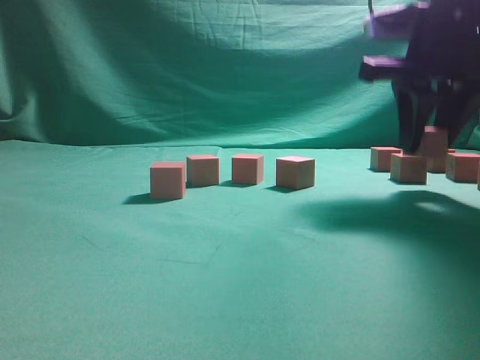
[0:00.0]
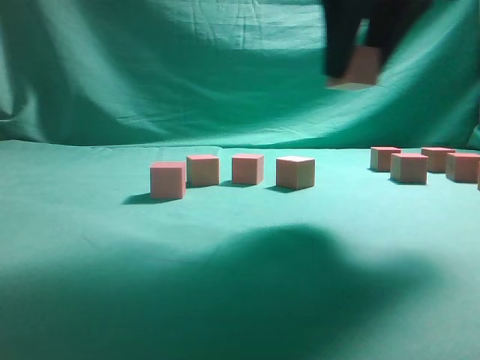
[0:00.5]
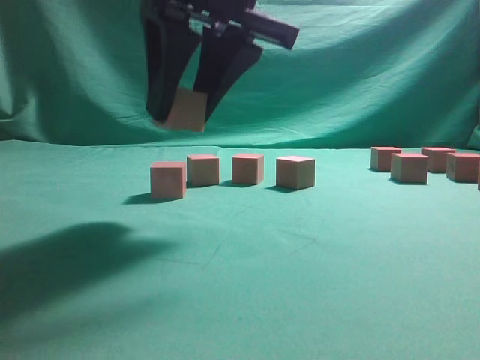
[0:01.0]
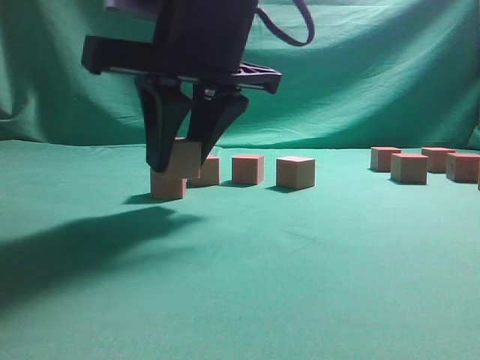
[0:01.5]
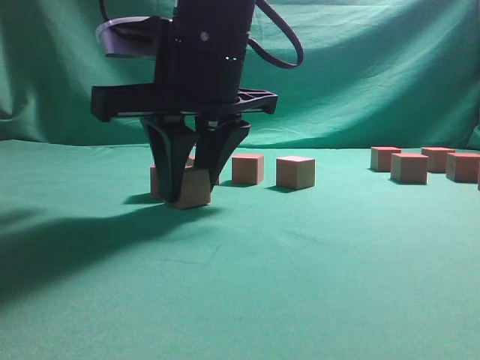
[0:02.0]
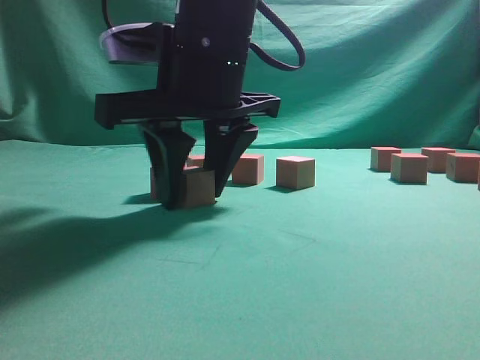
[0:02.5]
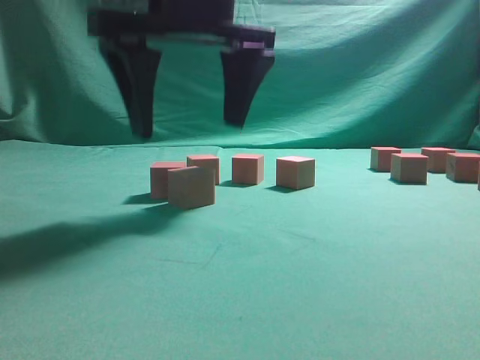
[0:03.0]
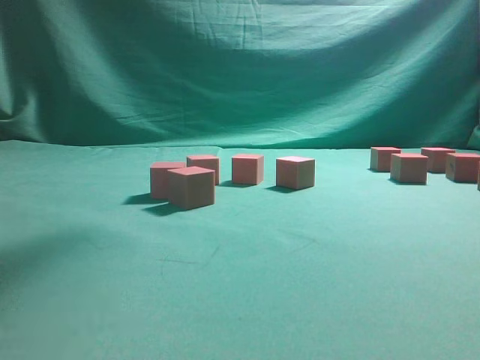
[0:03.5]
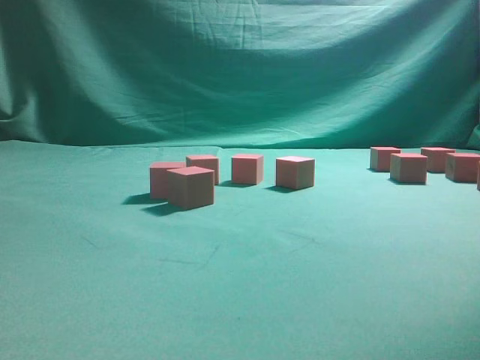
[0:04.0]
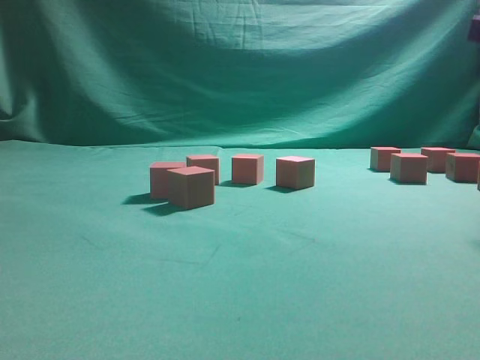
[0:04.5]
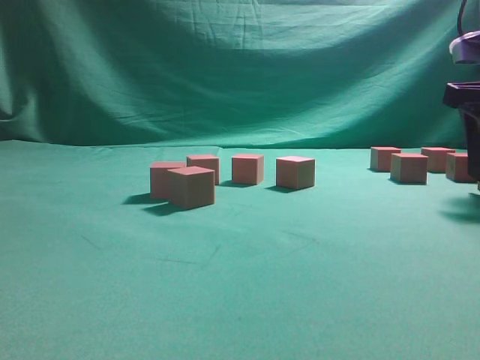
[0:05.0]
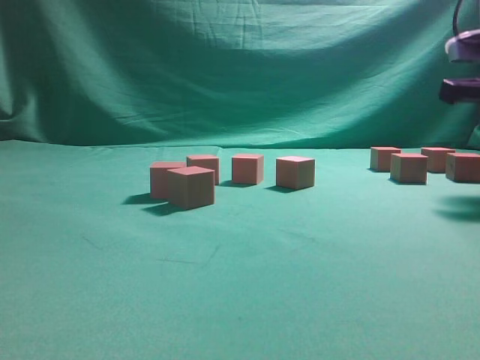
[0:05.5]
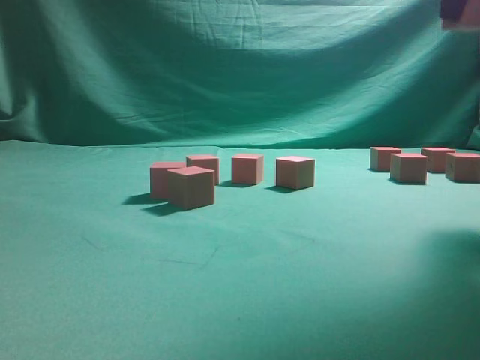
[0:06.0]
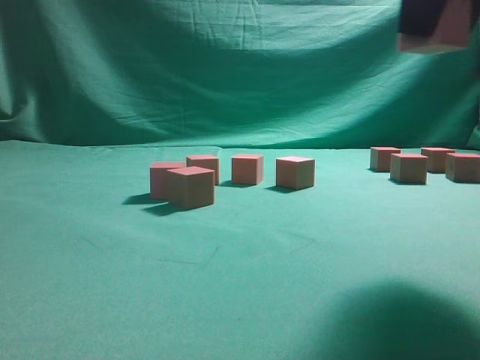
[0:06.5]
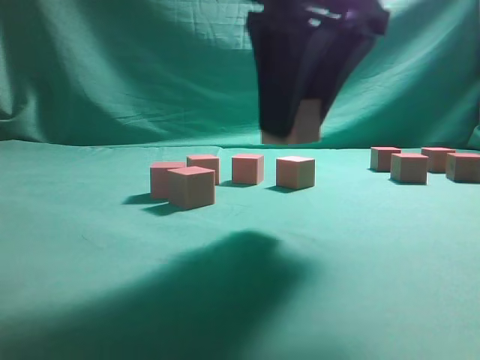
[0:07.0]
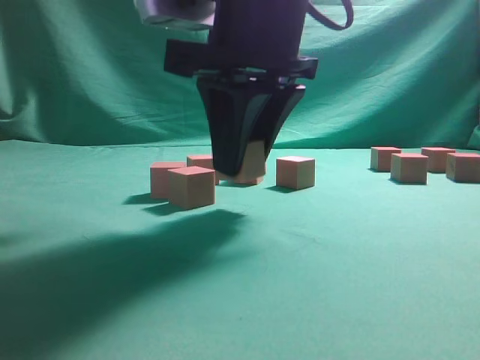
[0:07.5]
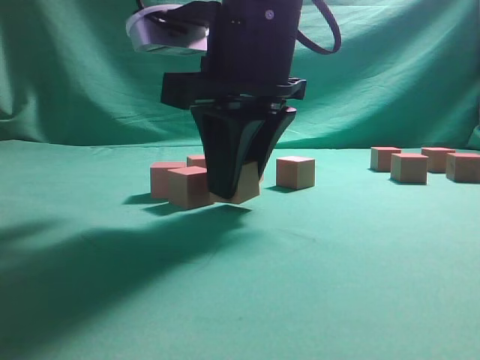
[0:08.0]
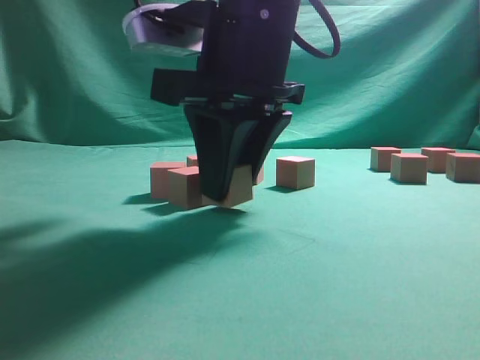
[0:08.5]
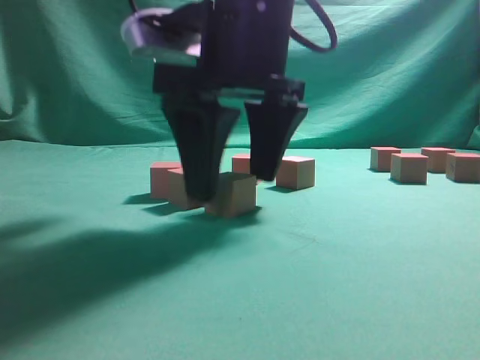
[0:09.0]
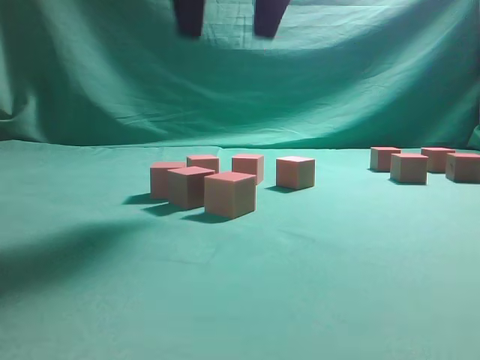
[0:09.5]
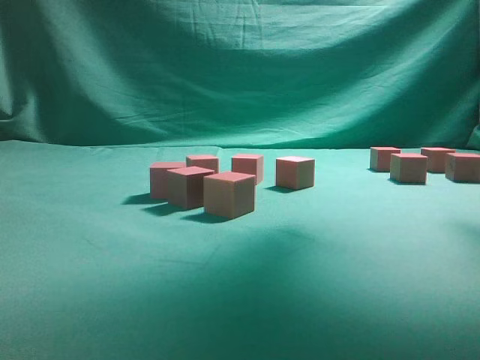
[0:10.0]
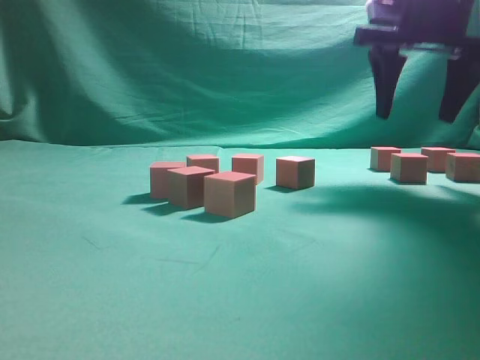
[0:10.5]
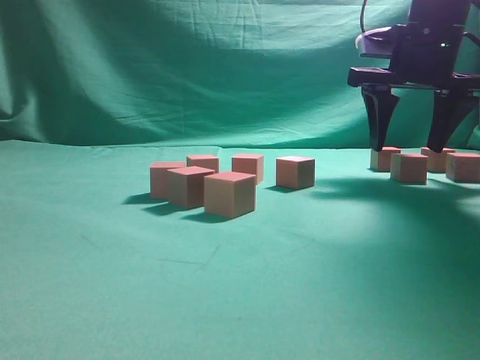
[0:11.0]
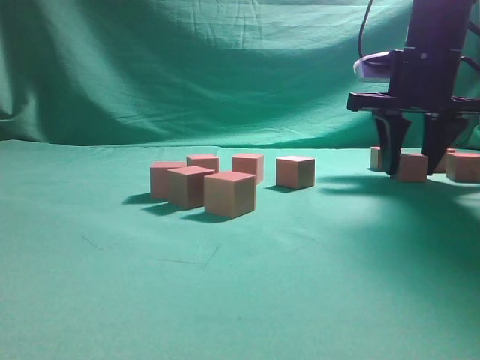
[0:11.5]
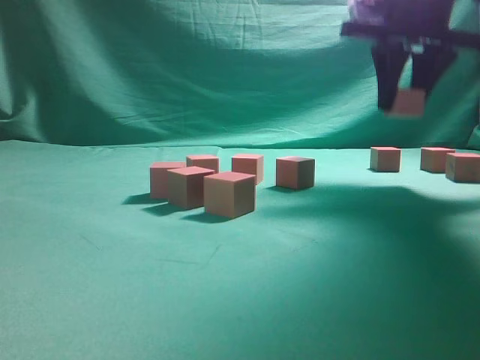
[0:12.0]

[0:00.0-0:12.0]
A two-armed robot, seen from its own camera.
Task of the whole recording: pick up the multiple cubes in two columns one by one and place them in another position on the table.
Step, 0:00.0 to 0:03.0: Place the block at the correct position to assemble the letter S.
Step, 0:03.5 to 0:05.5: Pick up the block on the table.
Step, 0:06.0 to 0:09.0: Place the block at the correct position to assemble the letter S.
Step, 0:09.5 to 0:11.5: Pick up the block on the table.
0:00.0 to 0:02.0: The right gripper heads to the left, covering some 20 cm.
0:02.0 to 0:04.0: The right gripper travels to the right and upward by some 30 cm, and opens its fingers.
0:04.0 to 0:06.0: The right gripper goes downward and returns, about 15 cm each way, and closes up.
0:06.0 to 0:08.0: The right gripper goes some 25 cm to the left and downward.
0:08.0 to 0:10.0: The right gripper heads to the right, upward and forward, covering about 25 cm, and opens up.
0:10.0 to 0:12.0: The right gripper moves downward and forward, approximately 10 cm, and closes its fingers.

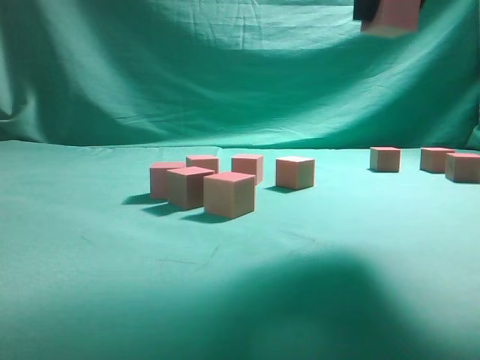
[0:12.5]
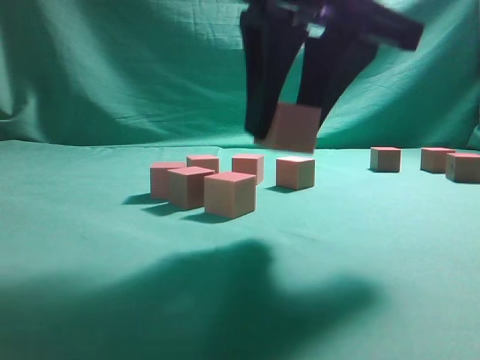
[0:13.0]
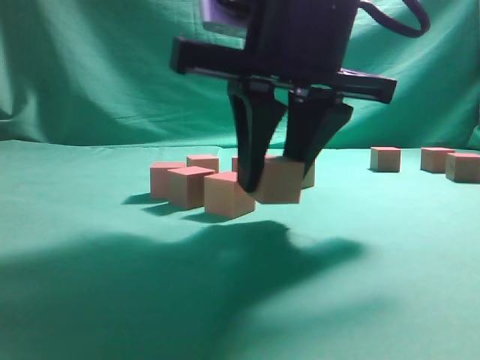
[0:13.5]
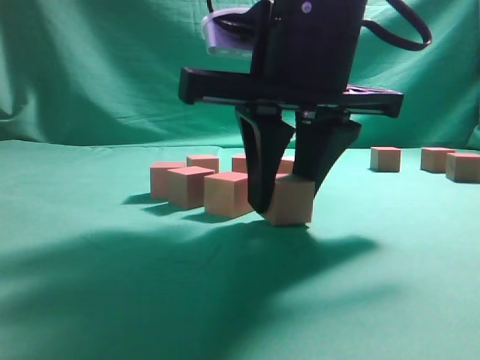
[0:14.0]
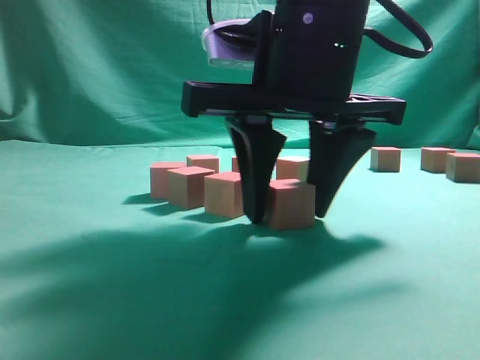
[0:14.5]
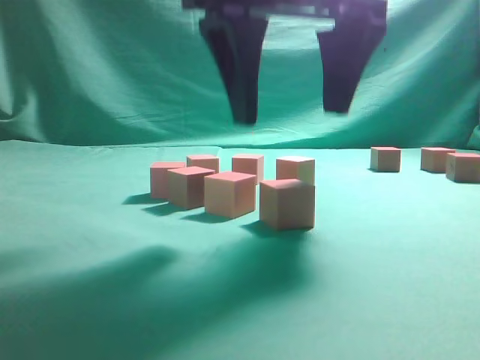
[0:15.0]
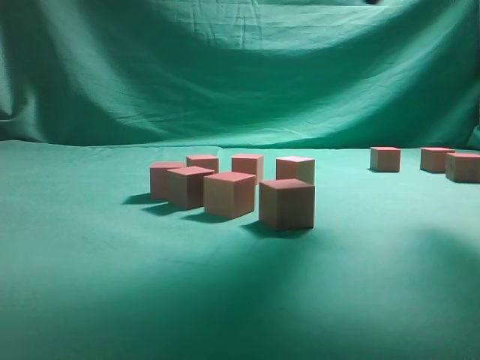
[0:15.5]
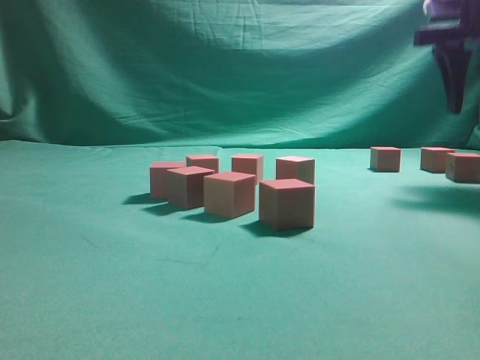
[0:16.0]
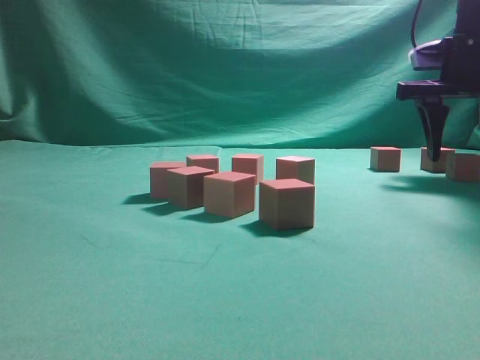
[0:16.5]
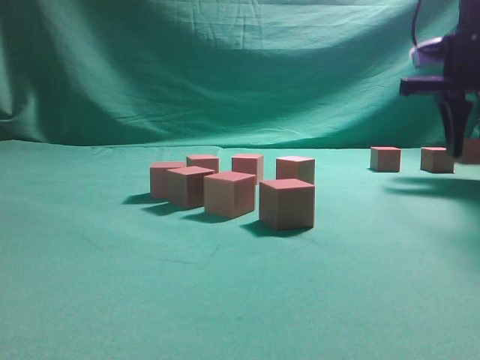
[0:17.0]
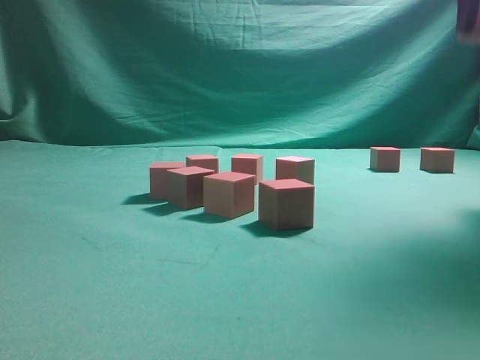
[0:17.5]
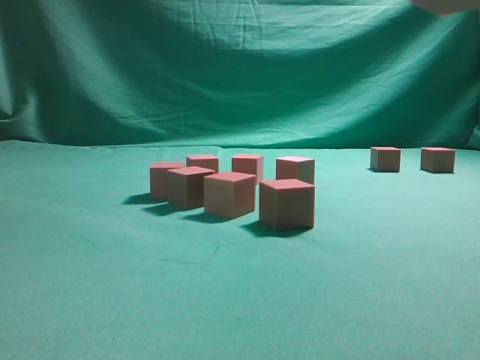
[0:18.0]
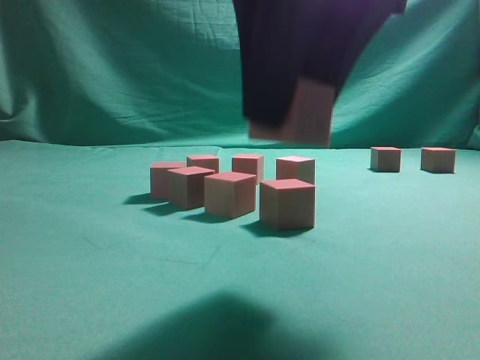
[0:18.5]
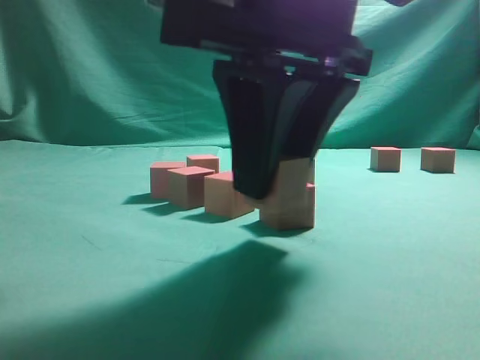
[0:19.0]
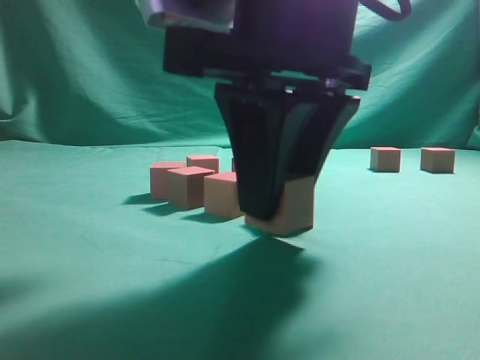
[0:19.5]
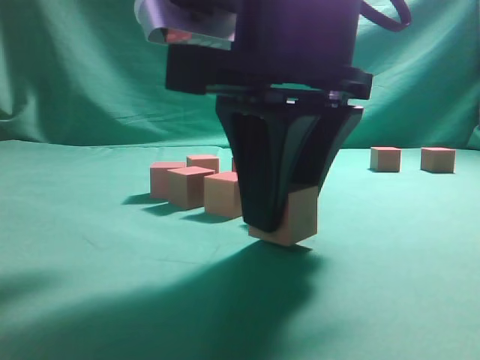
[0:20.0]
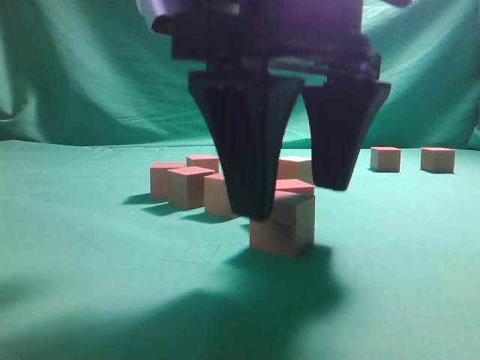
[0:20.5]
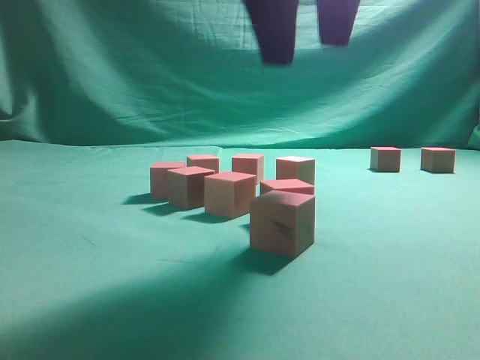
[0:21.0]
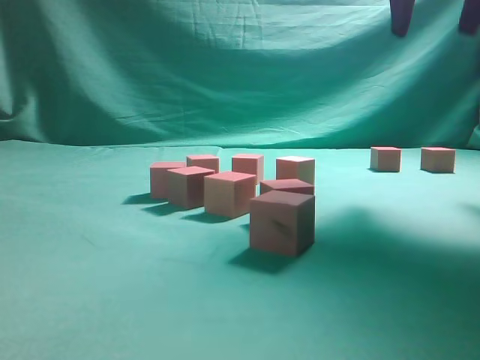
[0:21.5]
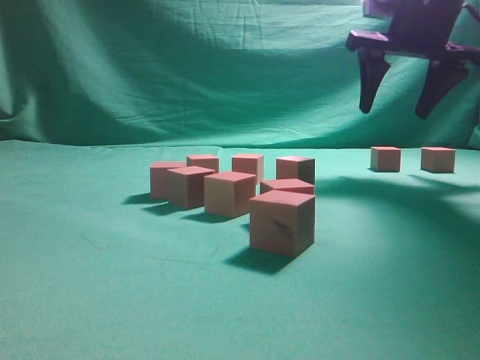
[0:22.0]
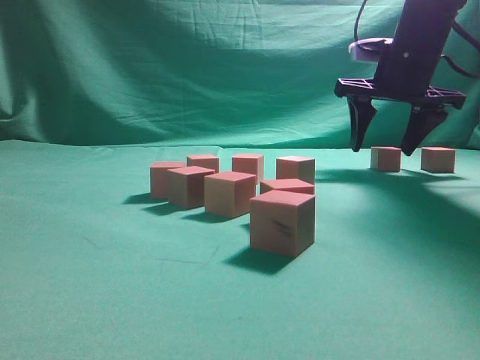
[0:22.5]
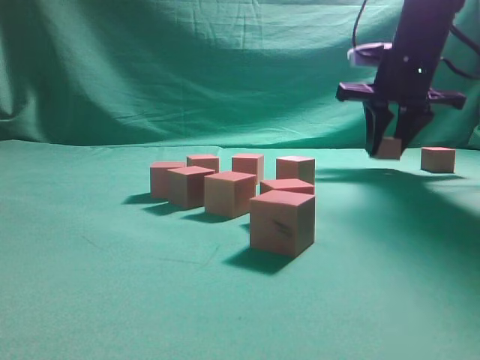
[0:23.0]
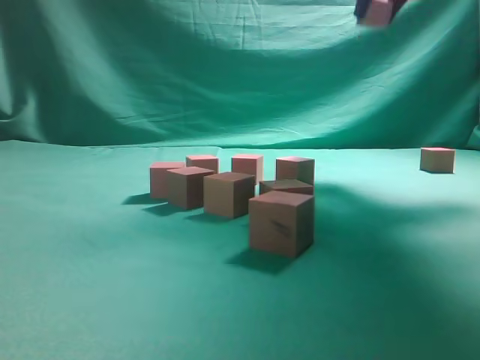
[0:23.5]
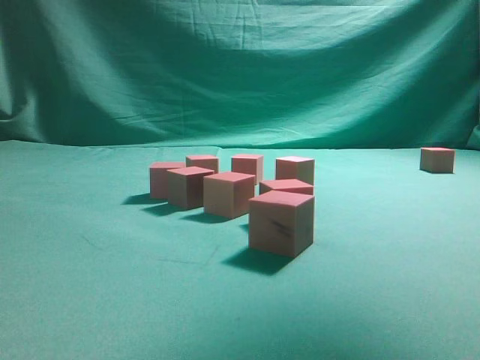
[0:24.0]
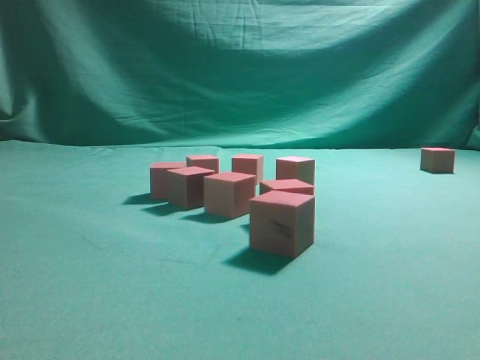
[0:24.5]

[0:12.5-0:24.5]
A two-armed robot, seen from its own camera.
Task of the whole recording: pick up the multiple cubes in two columns one by one and place them in another position on the table.
Step, 0:12.5 to 0:15.0: Place the block at the correct position to assemble the letter S.
Step, 0:15.5 to 0:17.0: Pick up the block on the table.
Step, 0:17.5 to 0:21.0: Place the block at the correct position to assemble the letter S.
Step, 0:21.5 to 0:23.0: Pick up the block on the table.
0:12.5 to 0:14.5: The right gripper shifts roughly 15 cm downward and to the left.
0:14.5 to 0:16.5: The right gripper goes some 25 cm to the right and forward.
0:16.5 to 0:18.5: The right gripper goes about 30 cm backward and to the left, and closes up.
0:18.5 to 0:20.5: The right gripper opens its fingers.
0:20.5 to 0:22.5: The right gripper travels forward and to the right by about 30 cm.
0:22.5 to 0:24.5: The right gripper shifts roughly 30 cm backward, upward and to the left, and closes up.

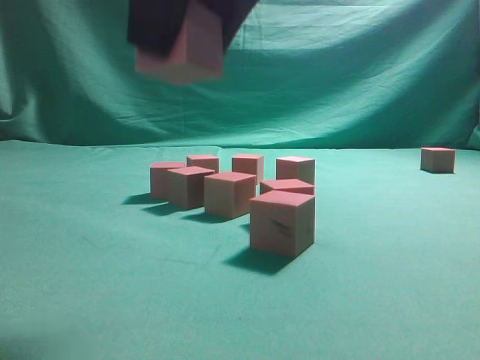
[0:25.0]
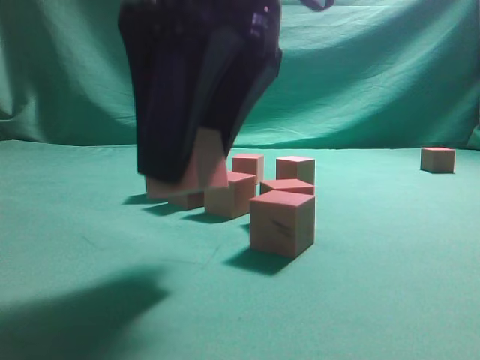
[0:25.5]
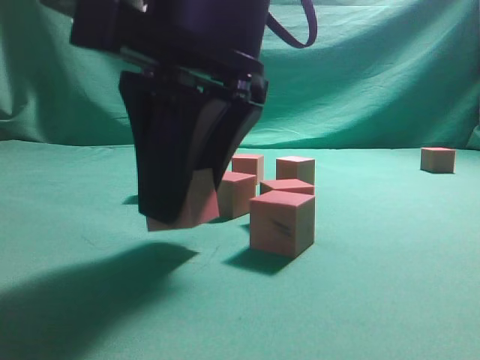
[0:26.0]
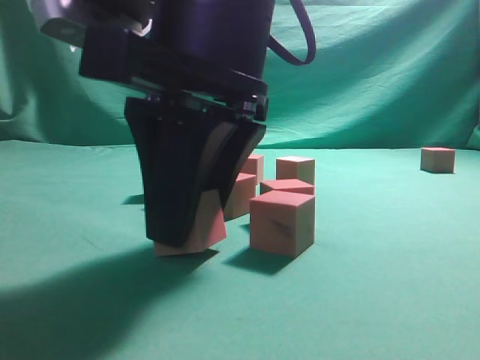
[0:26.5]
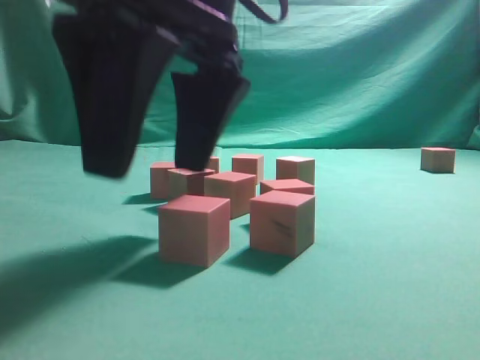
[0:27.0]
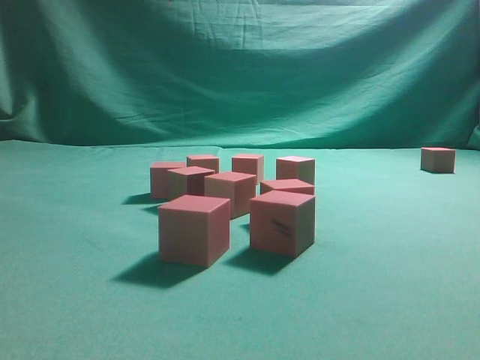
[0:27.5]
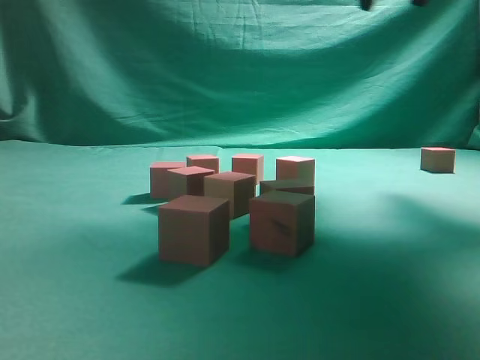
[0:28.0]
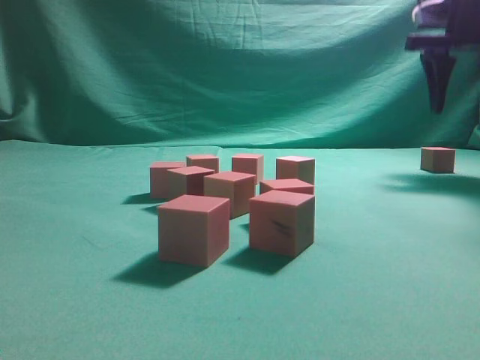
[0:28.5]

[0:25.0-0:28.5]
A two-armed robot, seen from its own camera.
Task of the whole recording: pick up the multiple cubes in two columns one by one and place them in another position on the table.
Step, 0:25.0 to 0:27.0: Place the block at the correct position to assemble the letter S.
0:25.0 to 0:27.0: The right gripper shifts by some 5 cm, and opens its fingers.
0:27.0 to 0:28.5: The right gripper goes some 40 cm to the right and forward.
